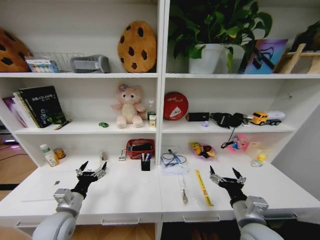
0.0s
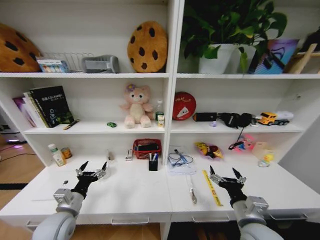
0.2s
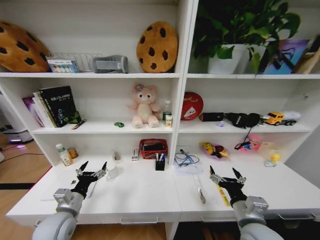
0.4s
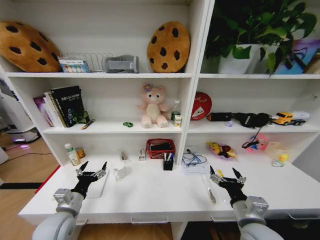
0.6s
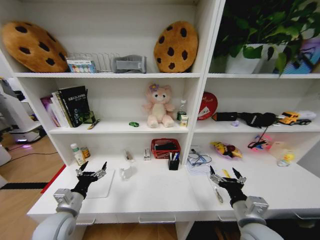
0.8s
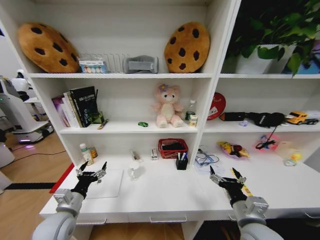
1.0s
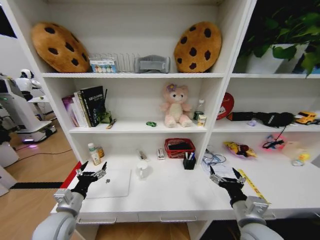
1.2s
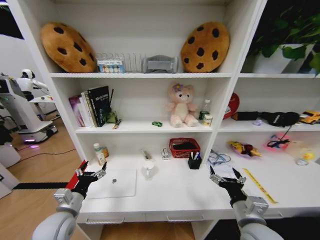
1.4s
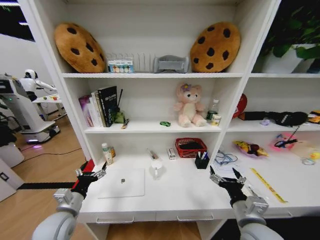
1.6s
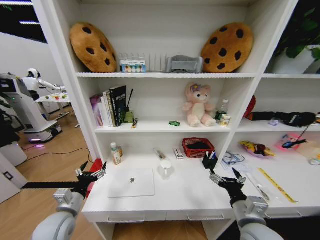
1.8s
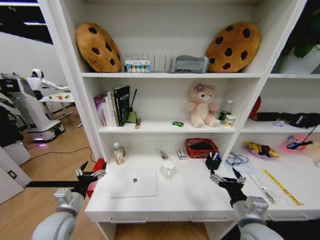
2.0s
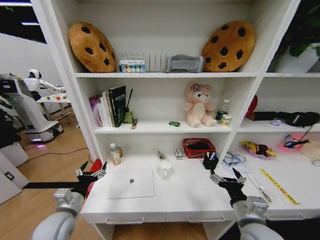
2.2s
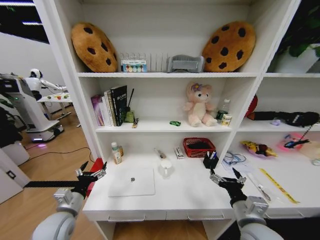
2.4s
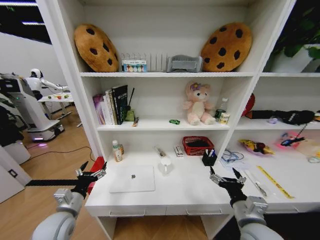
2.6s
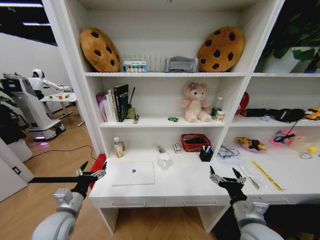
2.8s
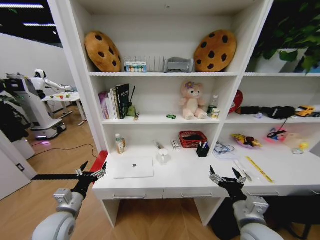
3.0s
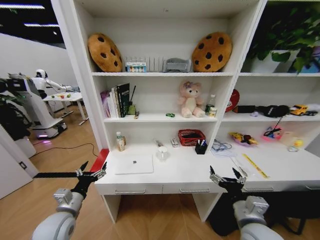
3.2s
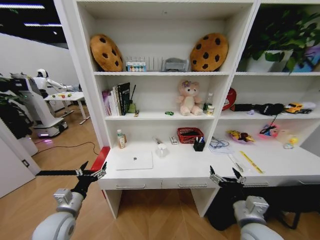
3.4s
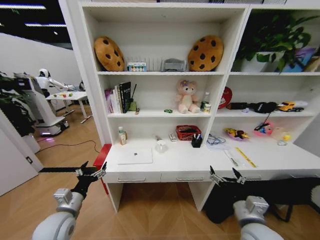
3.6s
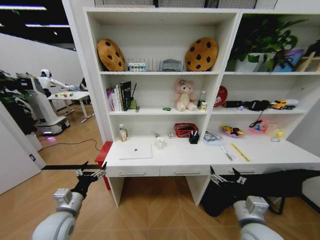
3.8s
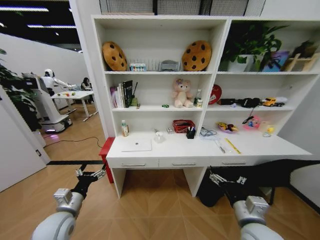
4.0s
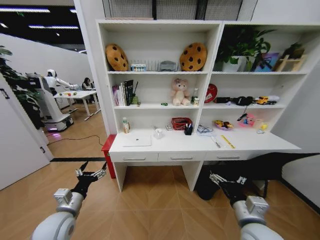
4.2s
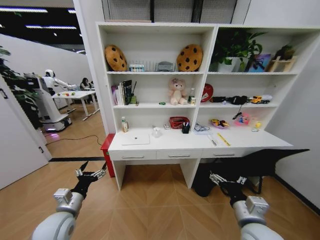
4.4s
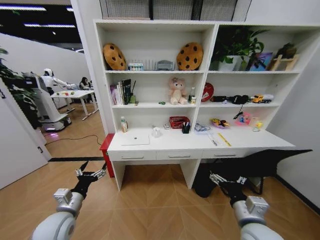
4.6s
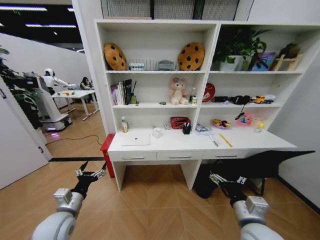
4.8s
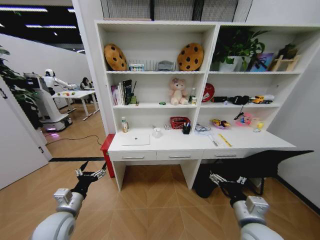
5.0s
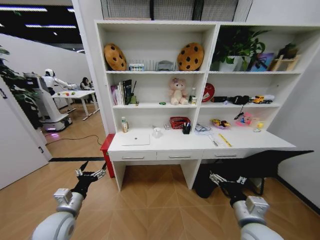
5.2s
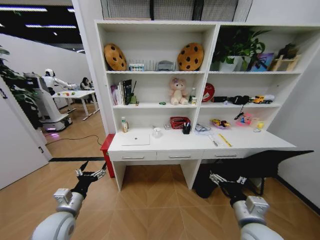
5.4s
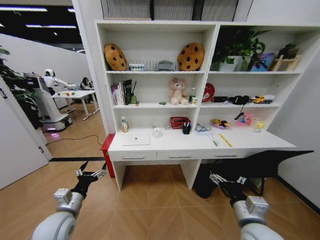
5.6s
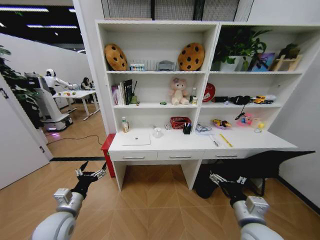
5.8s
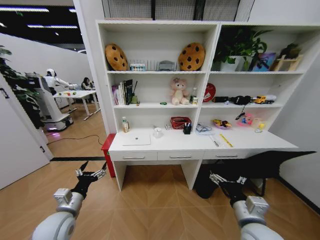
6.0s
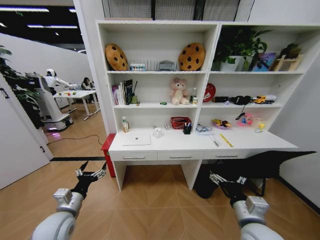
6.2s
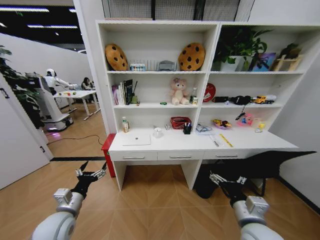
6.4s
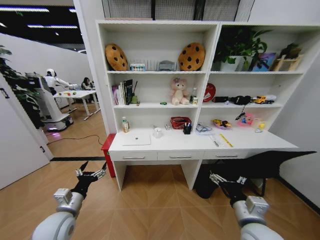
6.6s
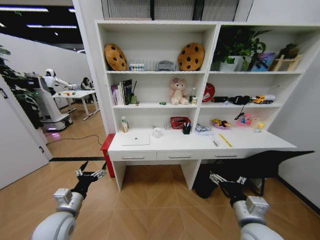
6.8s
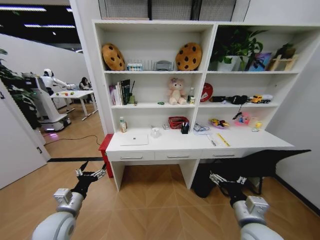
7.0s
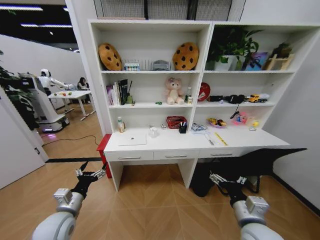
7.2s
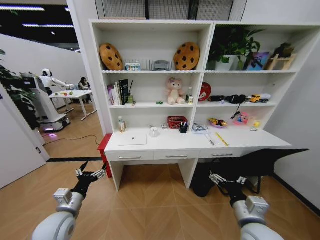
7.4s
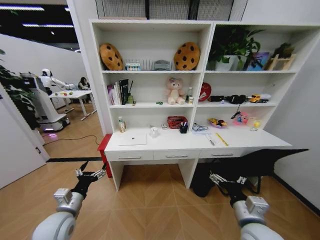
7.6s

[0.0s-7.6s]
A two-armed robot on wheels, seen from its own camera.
Task of the whole recording: Organize the objects on the table.
4.6s to 6.0s: Neither gripper changes place.

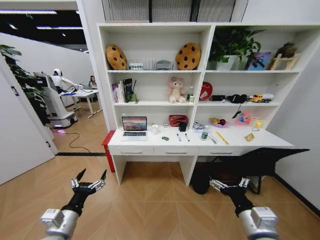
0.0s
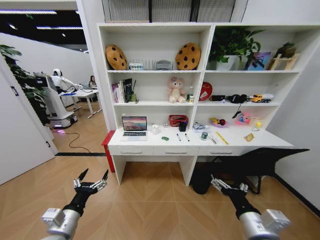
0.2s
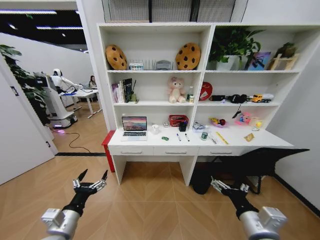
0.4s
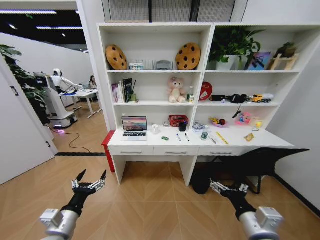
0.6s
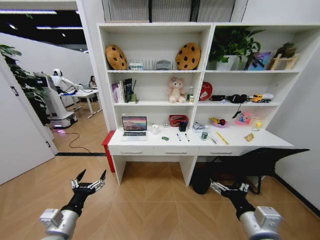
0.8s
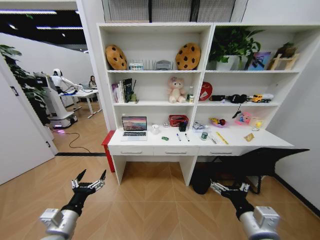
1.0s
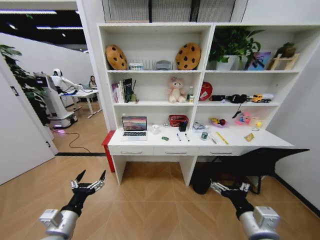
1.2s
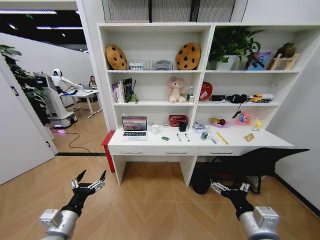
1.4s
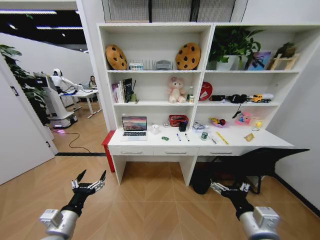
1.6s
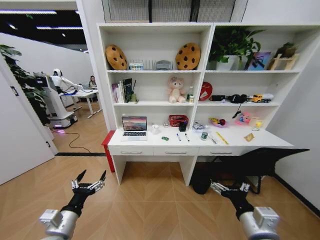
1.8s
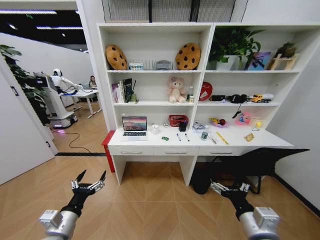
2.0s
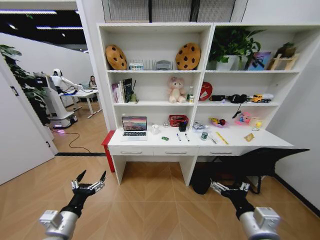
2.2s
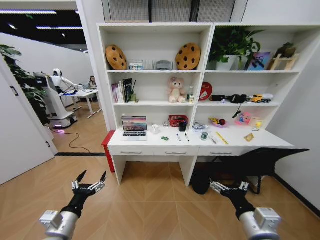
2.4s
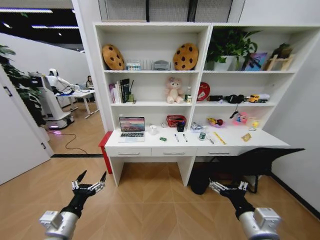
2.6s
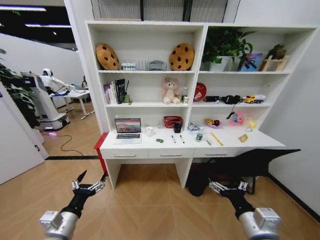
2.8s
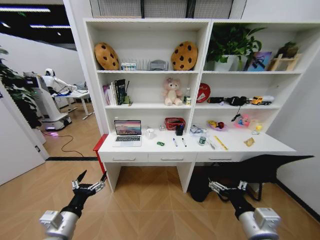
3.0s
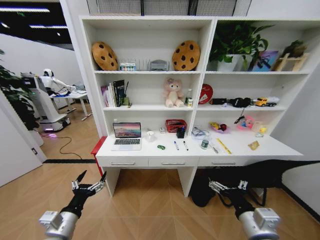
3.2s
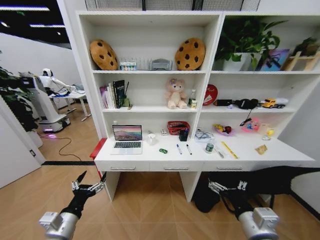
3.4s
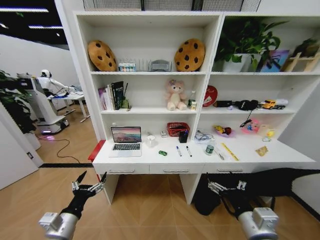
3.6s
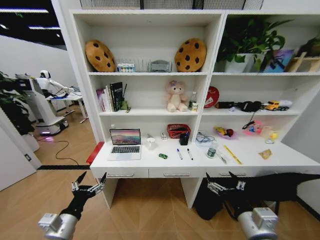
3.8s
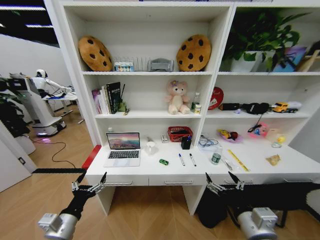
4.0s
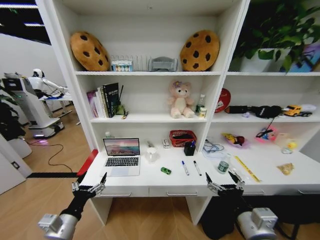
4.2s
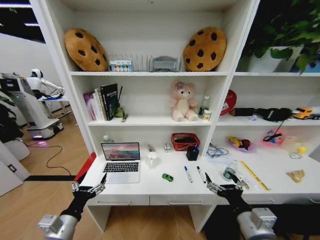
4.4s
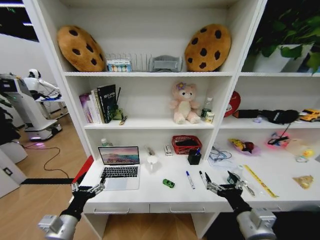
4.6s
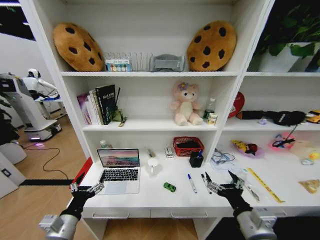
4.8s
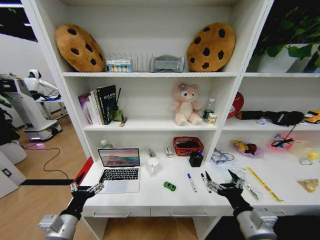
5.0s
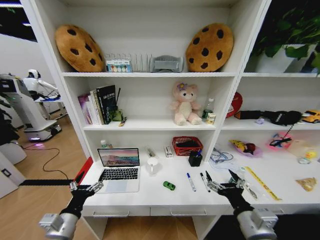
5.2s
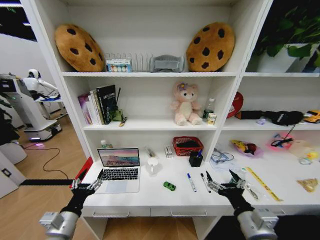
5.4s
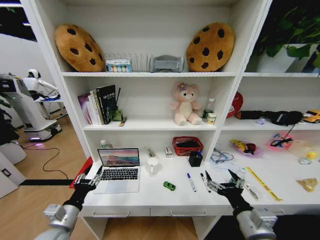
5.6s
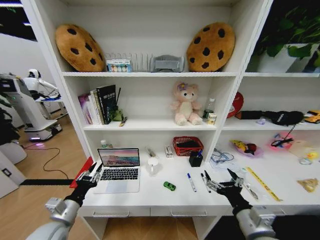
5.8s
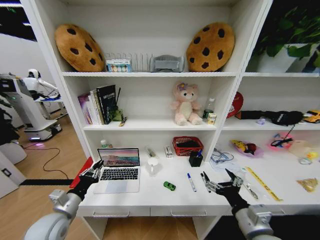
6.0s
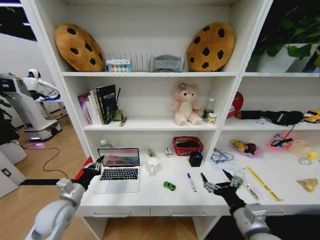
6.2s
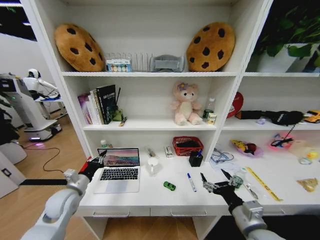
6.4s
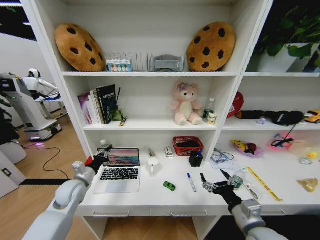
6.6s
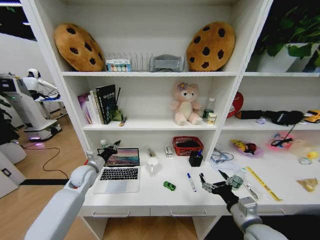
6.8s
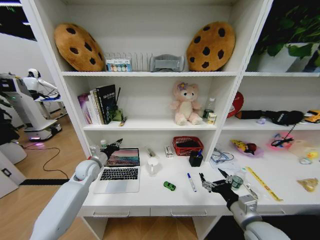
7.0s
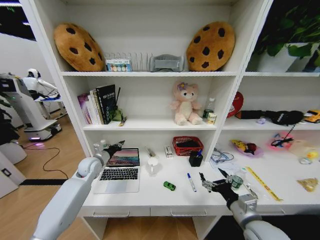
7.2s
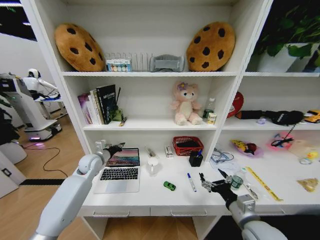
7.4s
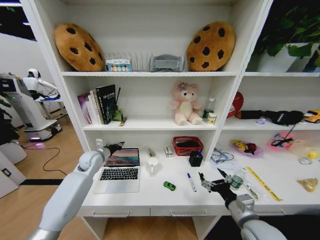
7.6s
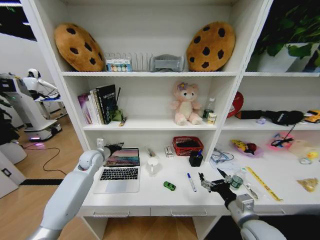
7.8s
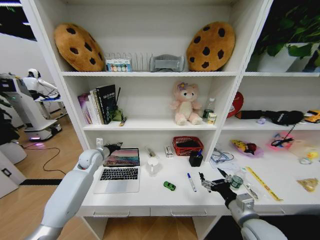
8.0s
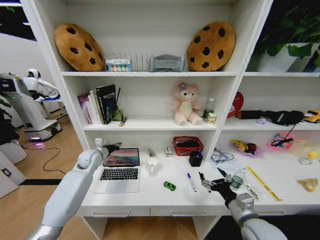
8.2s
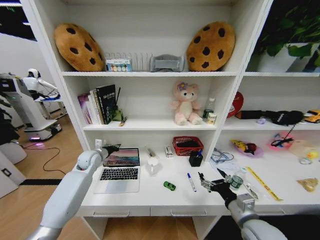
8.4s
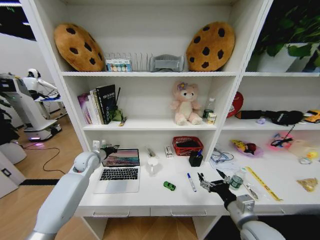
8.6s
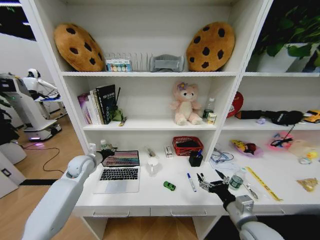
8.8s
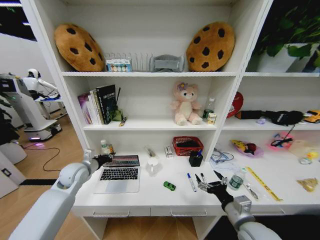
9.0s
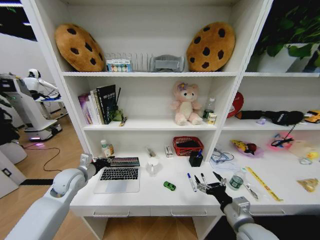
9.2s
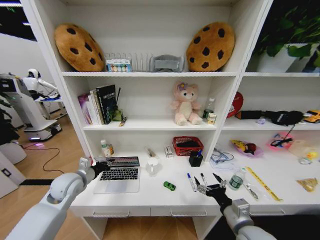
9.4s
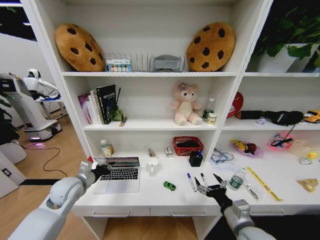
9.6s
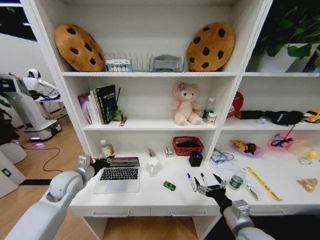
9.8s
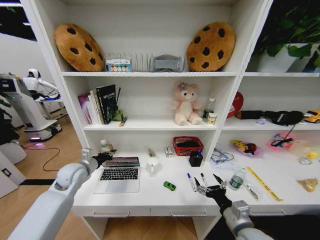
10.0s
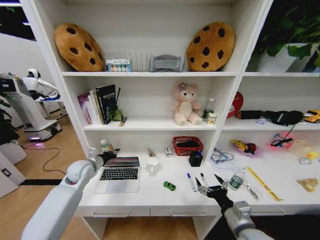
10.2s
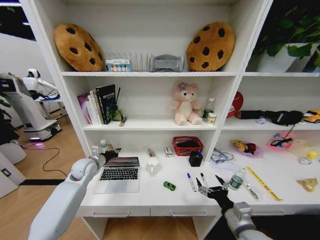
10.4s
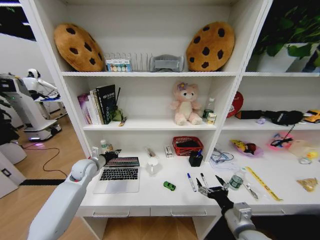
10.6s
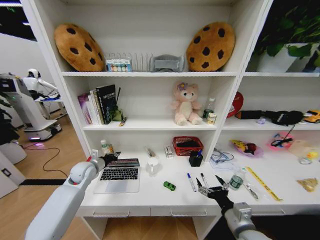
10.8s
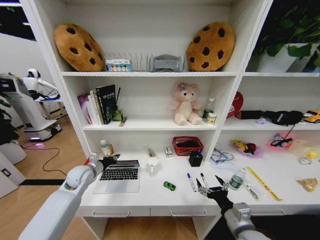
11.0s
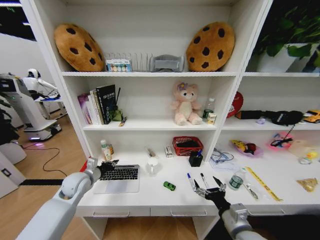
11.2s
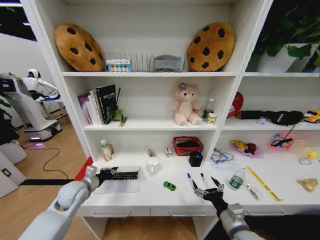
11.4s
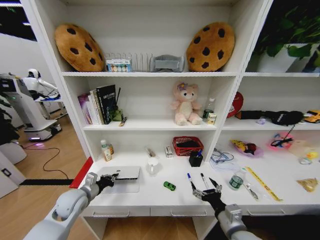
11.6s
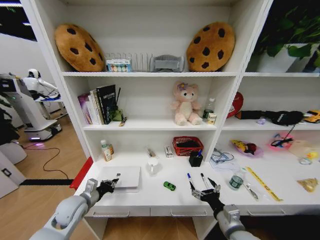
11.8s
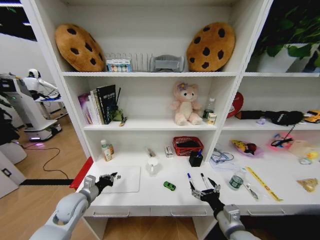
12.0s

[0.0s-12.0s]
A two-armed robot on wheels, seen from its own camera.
Task of the whole recording: Organize the objects on the table.
4.4s to 6.0s: The left gripper travels forward by some 5 cm, and closes.
6.0s to 7.6s: The right gripper moves some 5 cm; the left gripper shifts roughly 25 cm forward.
7.6s to 9.0s: The left gripper moves backward, approximately 5 cm.
9.0s to 10.4s: The left gripper goes backward and returns, some 5 cm each way.
10.4s to 12.0s: The left gripper shifts approximately 15 cm backward and downward.

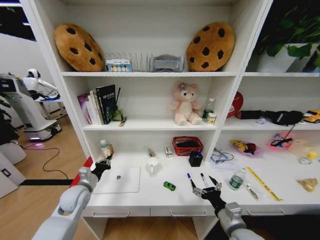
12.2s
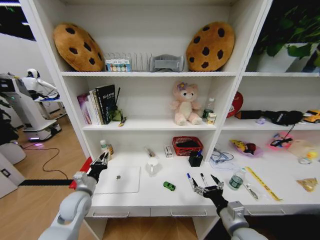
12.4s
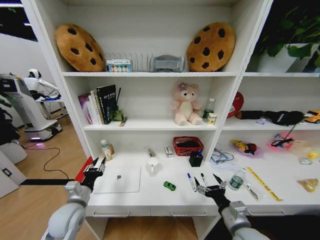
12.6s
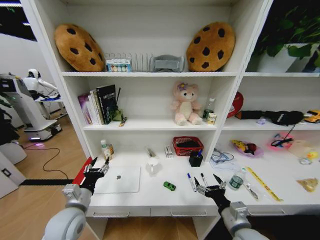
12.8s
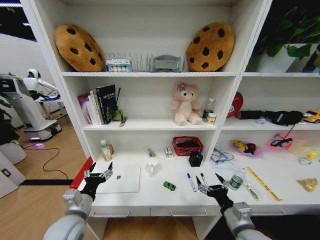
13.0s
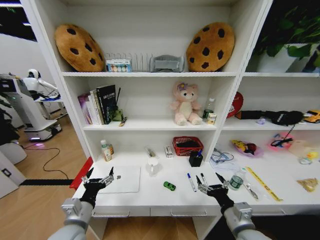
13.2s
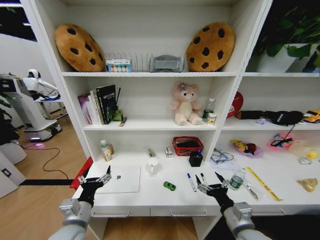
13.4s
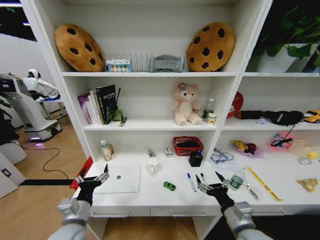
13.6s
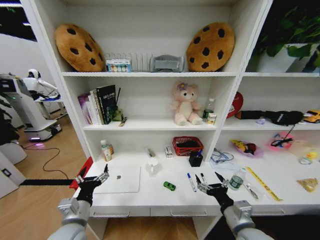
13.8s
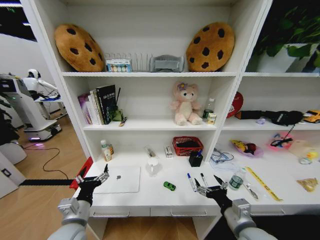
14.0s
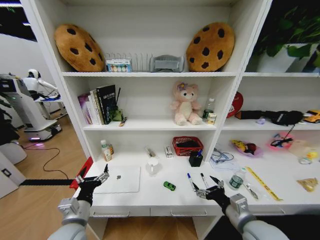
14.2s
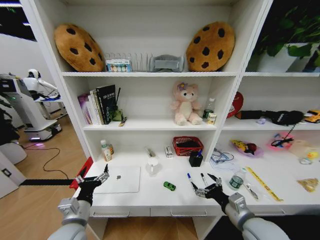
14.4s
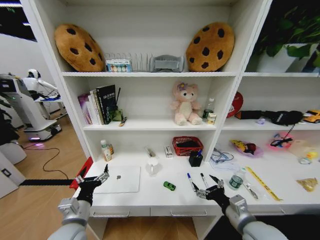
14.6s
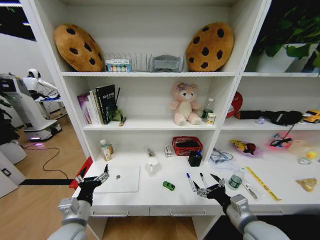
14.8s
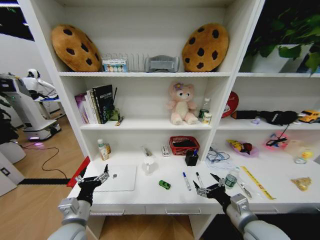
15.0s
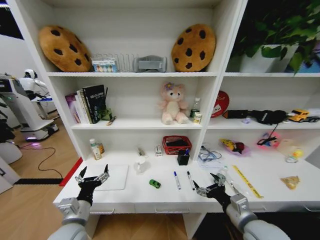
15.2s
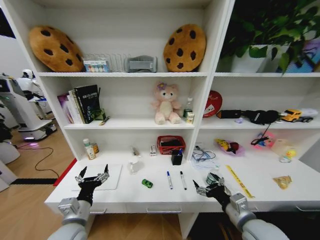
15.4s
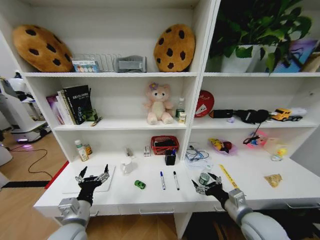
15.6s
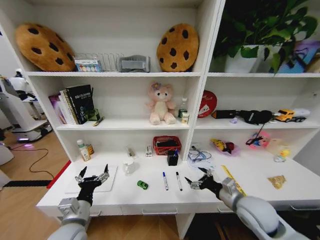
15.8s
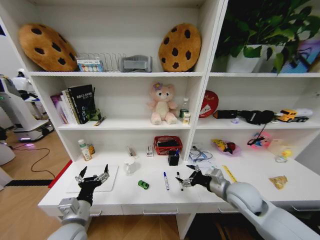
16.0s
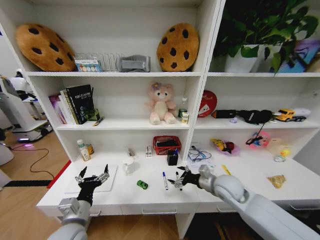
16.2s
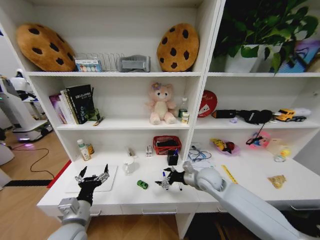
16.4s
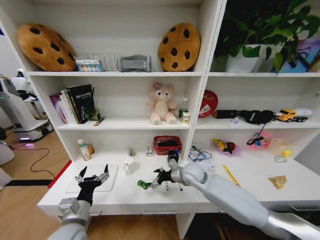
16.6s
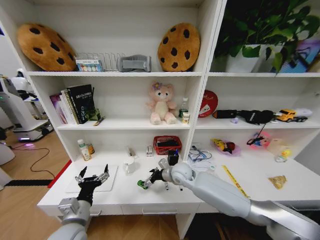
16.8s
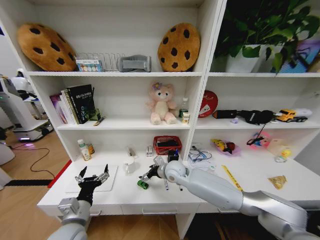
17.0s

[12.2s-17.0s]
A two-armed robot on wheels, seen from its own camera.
Task of the whole recording: Organize the objects on the table.
12.2s to 13.8s: The left gripper travels backward and to the right by about 15 cm, and opens its fingers.
15.4s to 17.0s: The right gripper is displaced forward and to the left by about 30 cm.
